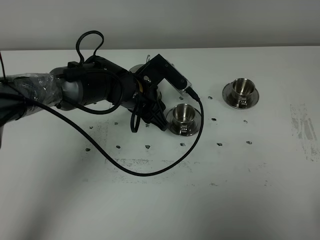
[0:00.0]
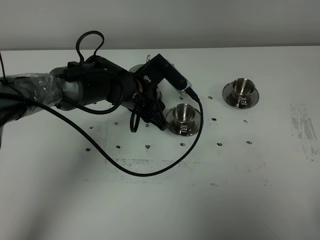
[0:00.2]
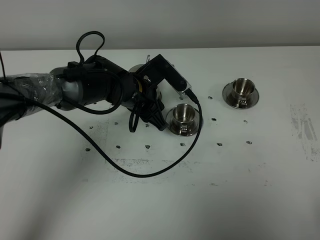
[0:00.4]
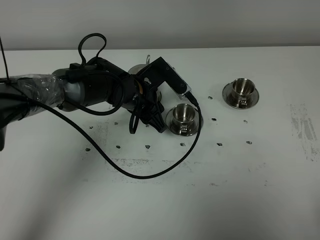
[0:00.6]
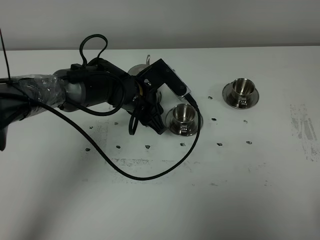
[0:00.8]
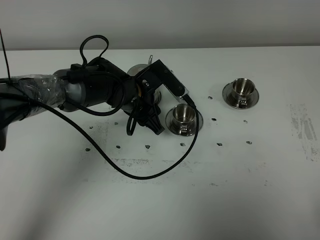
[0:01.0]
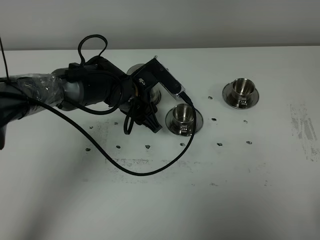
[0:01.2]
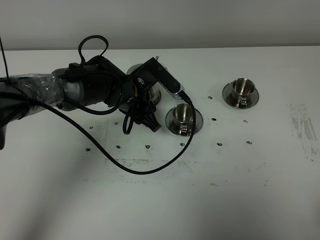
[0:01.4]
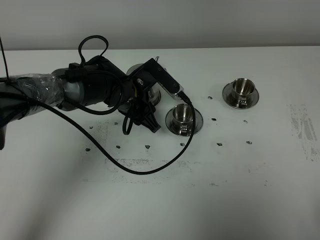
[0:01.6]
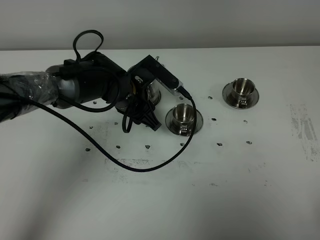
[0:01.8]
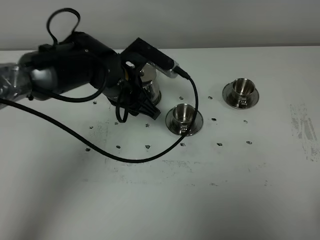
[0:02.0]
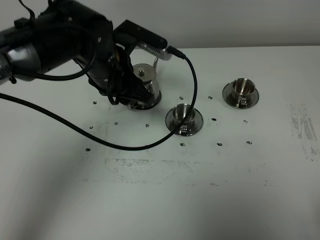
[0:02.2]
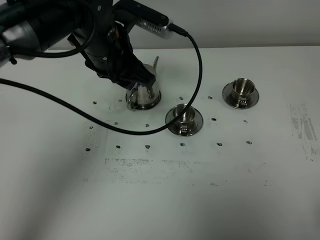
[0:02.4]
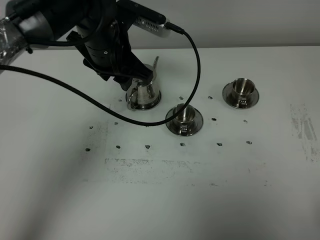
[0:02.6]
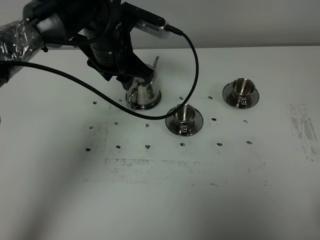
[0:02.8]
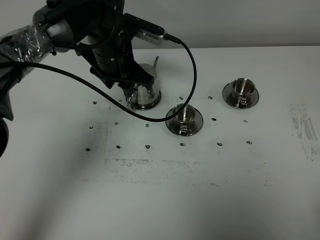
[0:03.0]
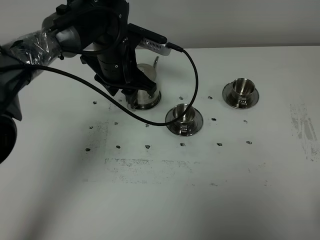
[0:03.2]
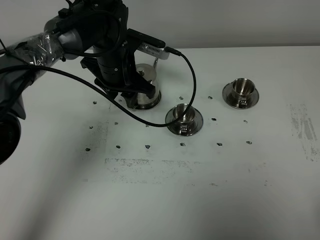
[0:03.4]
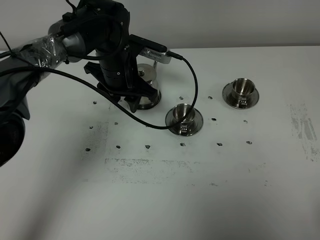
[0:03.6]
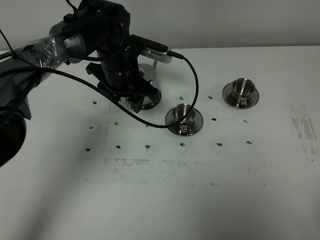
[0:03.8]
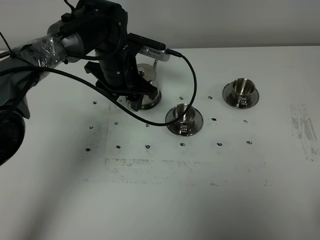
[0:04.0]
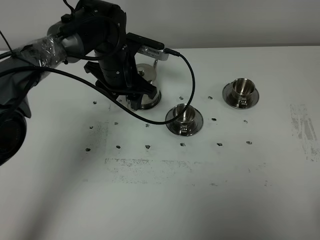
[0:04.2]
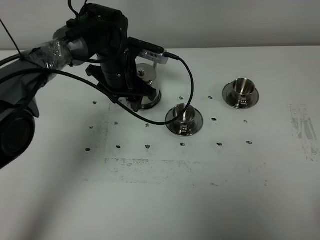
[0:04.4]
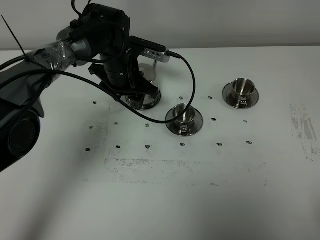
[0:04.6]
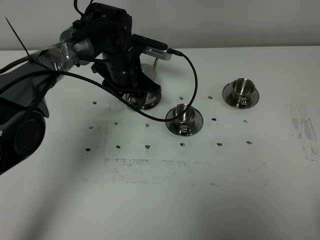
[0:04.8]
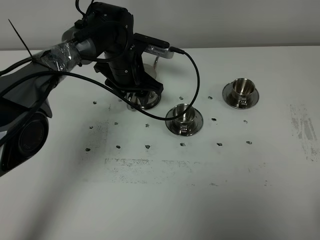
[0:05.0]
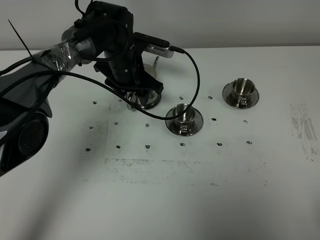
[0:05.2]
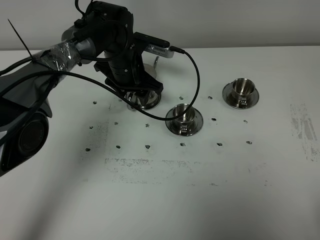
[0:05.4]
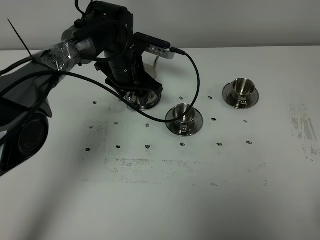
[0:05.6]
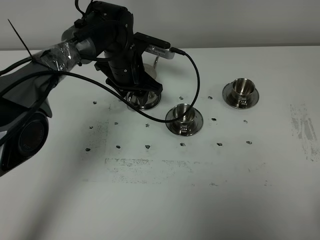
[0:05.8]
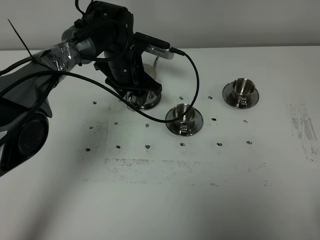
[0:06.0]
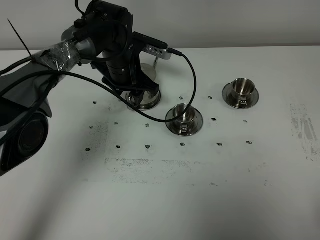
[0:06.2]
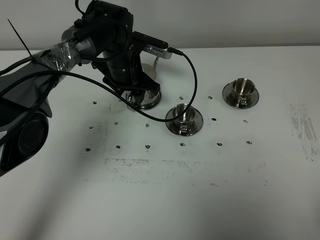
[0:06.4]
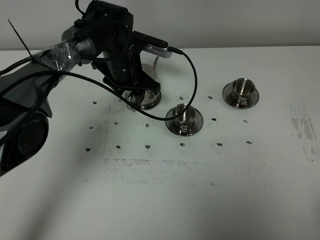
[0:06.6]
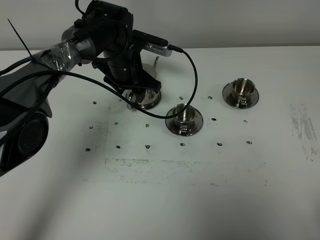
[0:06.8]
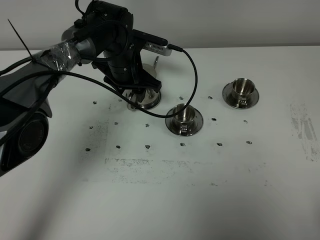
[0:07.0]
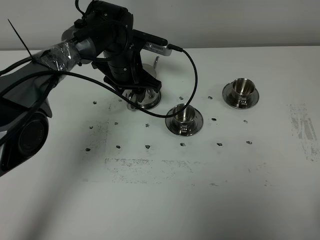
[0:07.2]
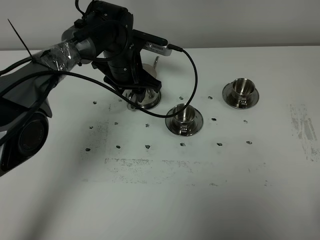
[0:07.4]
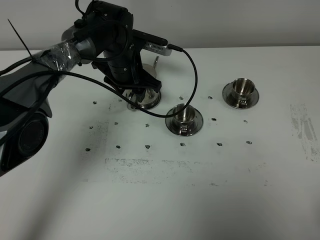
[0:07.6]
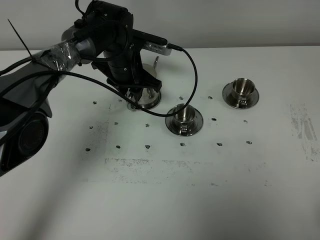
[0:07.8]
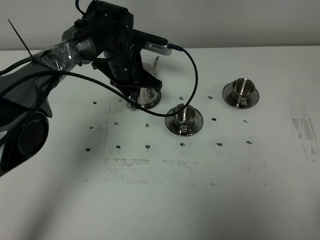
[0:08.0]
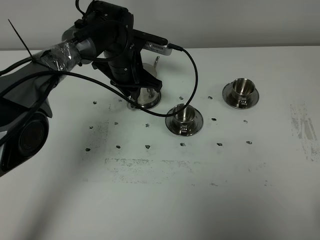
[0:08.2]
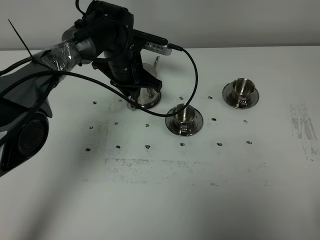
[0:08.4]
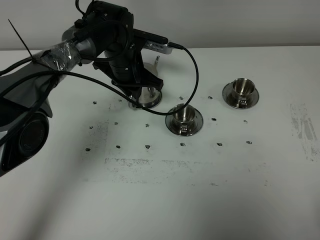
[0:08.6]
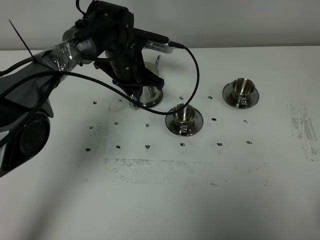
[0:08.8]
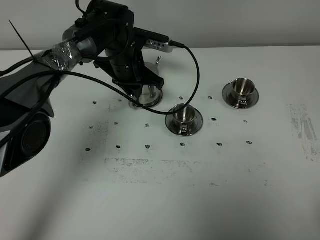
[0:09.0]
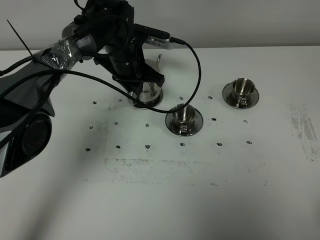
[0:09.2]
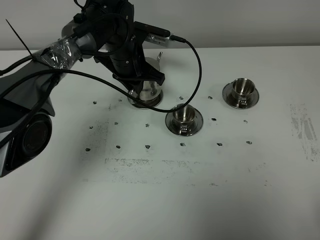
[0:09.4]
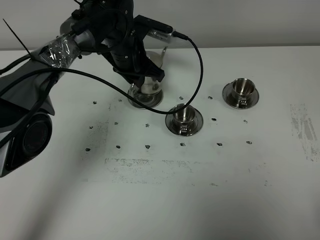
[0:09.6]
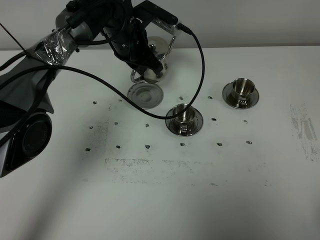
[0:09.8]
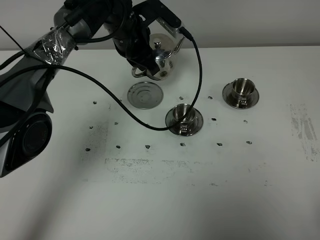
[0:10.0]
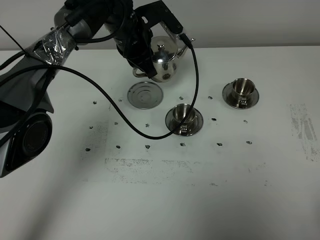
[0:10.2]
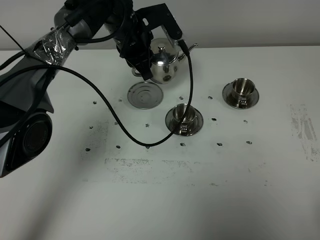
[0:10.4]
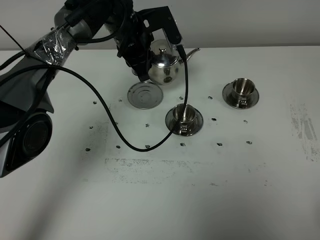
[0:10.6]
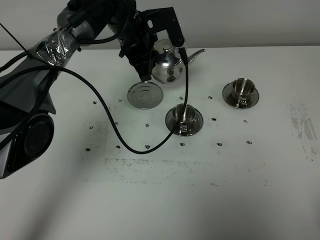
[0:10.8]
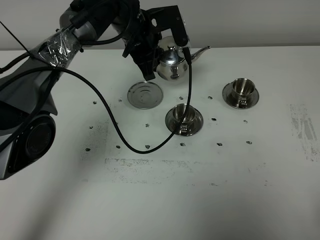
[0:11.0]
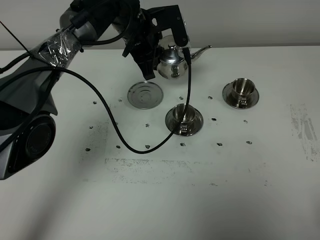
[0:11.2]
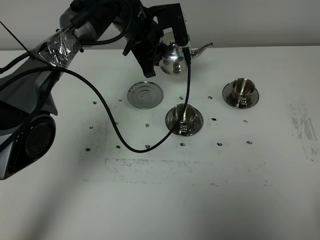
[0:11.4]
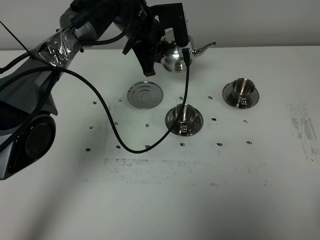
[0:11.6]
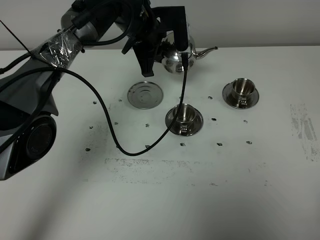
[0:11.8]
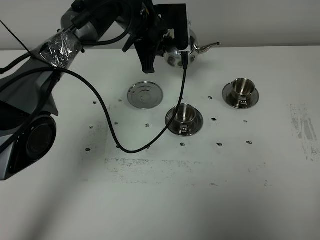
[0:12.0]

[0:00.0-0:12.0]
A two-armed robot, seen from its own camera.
Task of the whole recording: grasp the stainless steel teapot and pour the tea into the two stainless steel teacups one by one, put the stainless steel teapot back in its original place.
Step, 0:00.0 to 0:09.2: Pick up the teapot with the left gripper.
0:00.0 to 0:01.6: The grippers stay close to where they were, moving slightly.
0:01.6 to 0:03.0: The left gripper goes approximately 10 cm upward.
0:03.0 to 0:04.4: The left gripper is displaced downward by some 5 cm.
0:04.4 to 0:06.0: The grippers move only a little.
0:06.0 to 0:07.6: Both grippers stay about where they are.
0:07.6 to 0:09.0: The left gripper closes up.
0:09.0 to 0:10.4: The left gripper heads upward, covering some 5 cm.

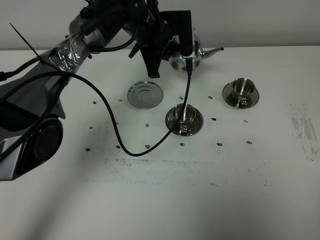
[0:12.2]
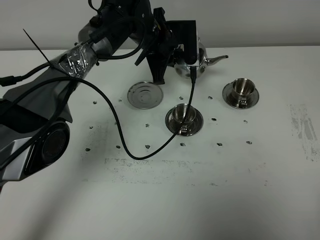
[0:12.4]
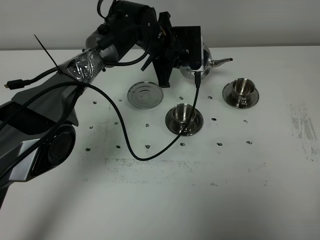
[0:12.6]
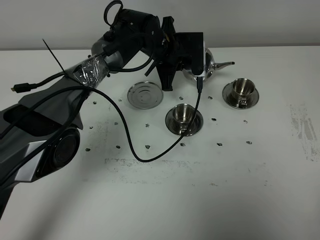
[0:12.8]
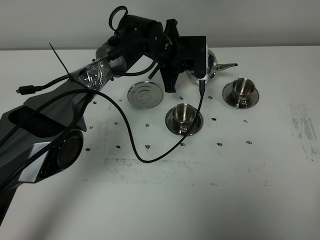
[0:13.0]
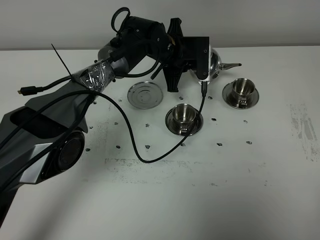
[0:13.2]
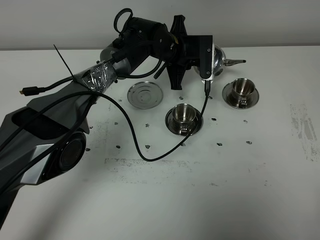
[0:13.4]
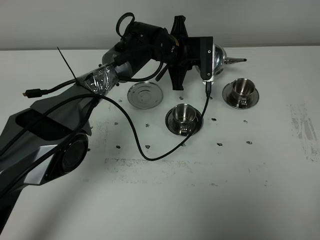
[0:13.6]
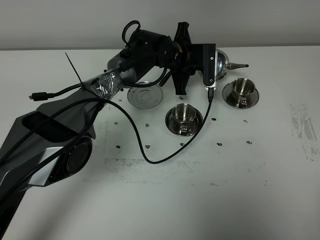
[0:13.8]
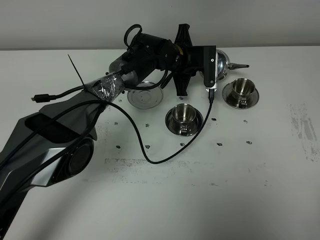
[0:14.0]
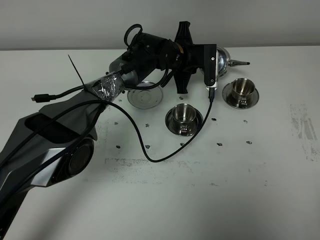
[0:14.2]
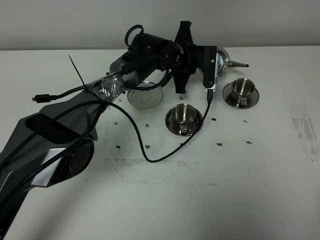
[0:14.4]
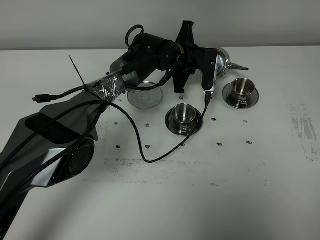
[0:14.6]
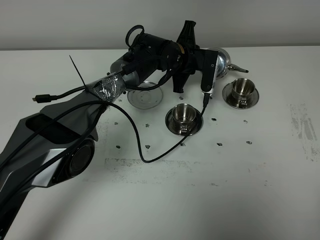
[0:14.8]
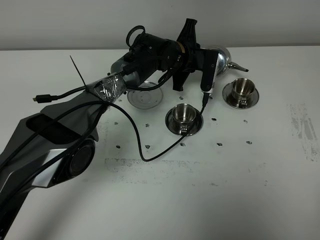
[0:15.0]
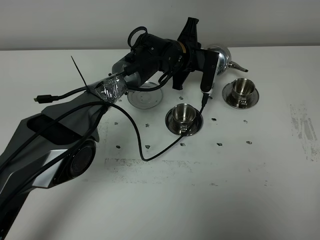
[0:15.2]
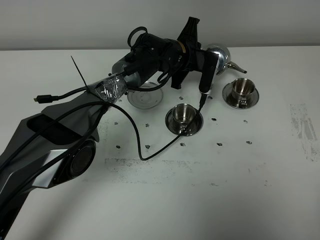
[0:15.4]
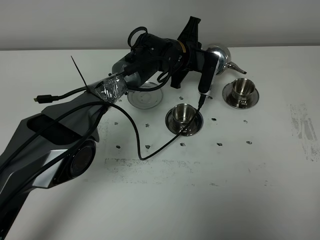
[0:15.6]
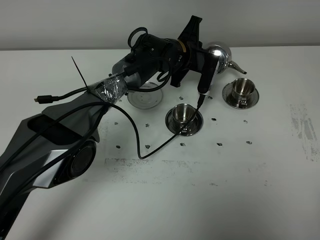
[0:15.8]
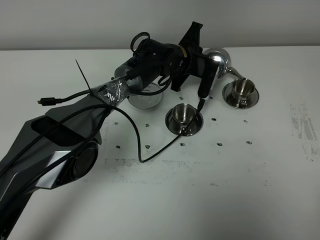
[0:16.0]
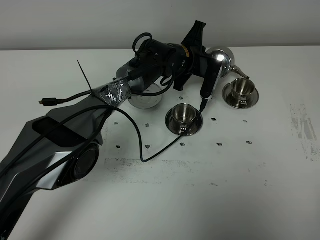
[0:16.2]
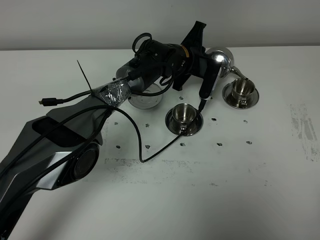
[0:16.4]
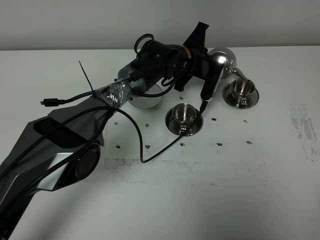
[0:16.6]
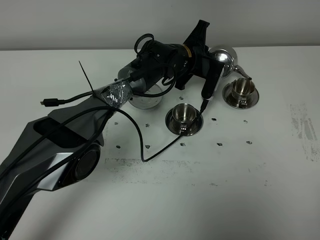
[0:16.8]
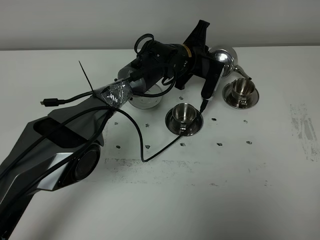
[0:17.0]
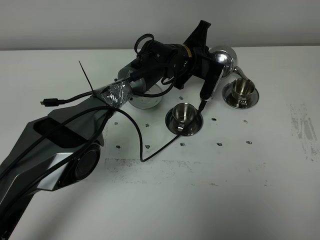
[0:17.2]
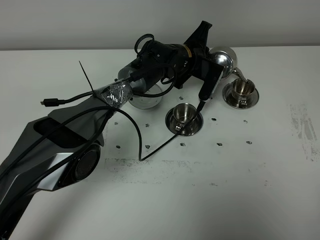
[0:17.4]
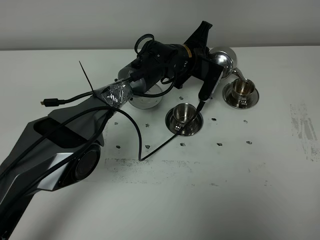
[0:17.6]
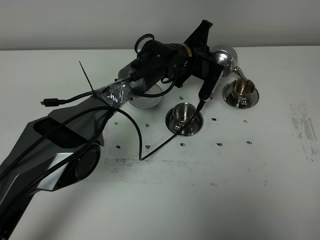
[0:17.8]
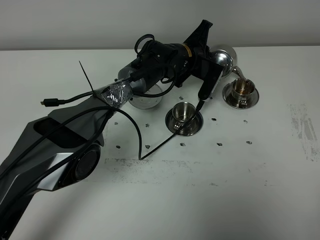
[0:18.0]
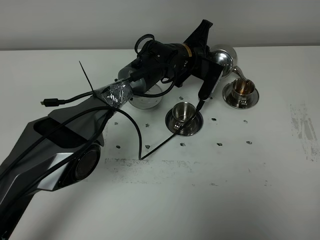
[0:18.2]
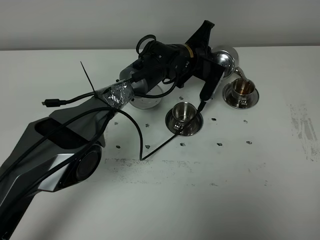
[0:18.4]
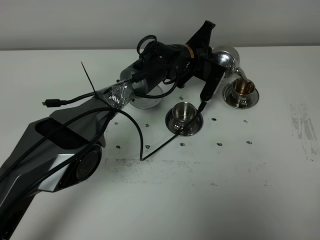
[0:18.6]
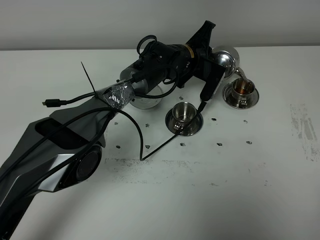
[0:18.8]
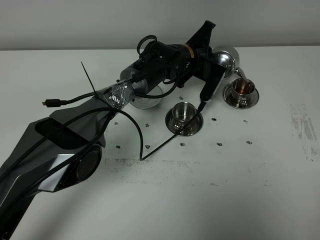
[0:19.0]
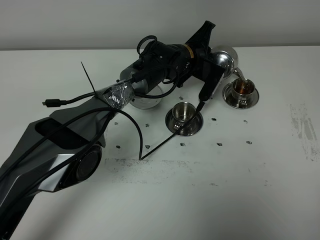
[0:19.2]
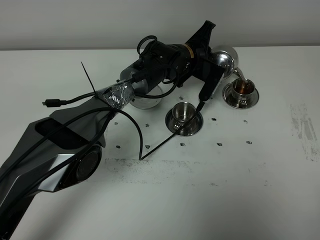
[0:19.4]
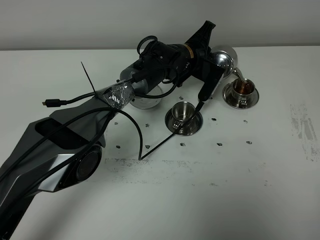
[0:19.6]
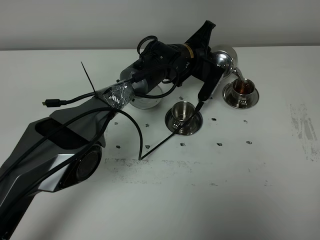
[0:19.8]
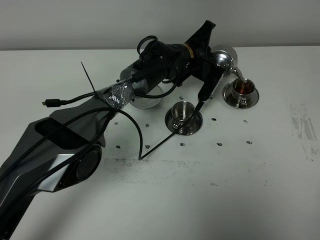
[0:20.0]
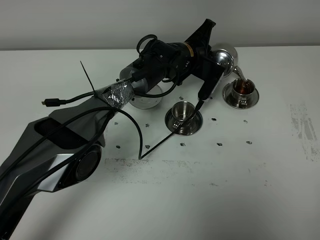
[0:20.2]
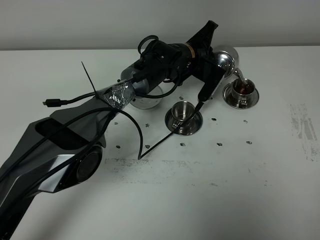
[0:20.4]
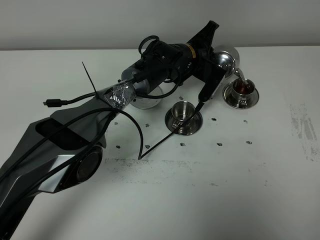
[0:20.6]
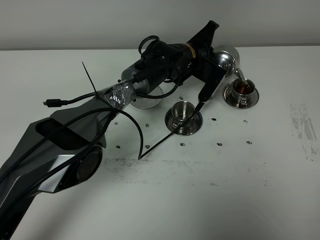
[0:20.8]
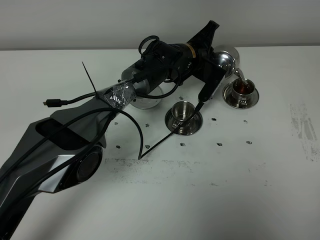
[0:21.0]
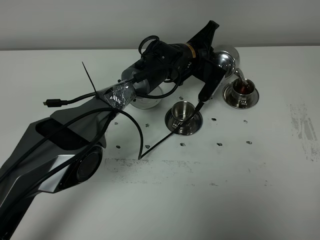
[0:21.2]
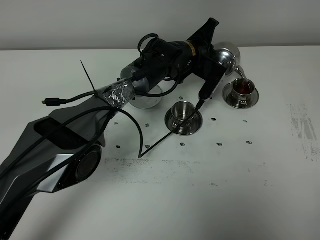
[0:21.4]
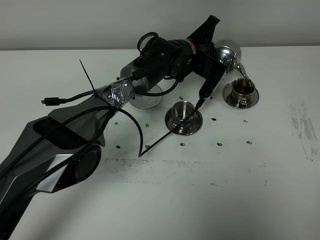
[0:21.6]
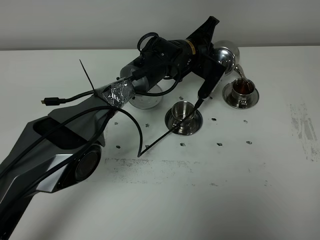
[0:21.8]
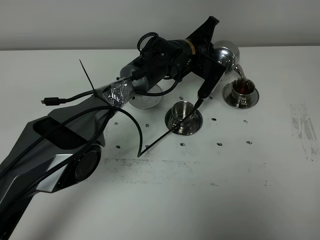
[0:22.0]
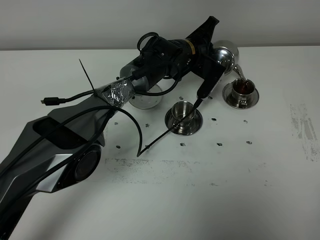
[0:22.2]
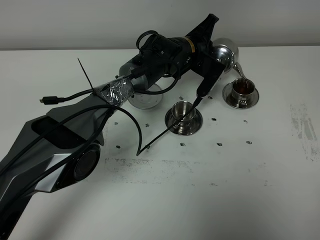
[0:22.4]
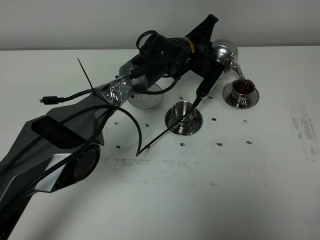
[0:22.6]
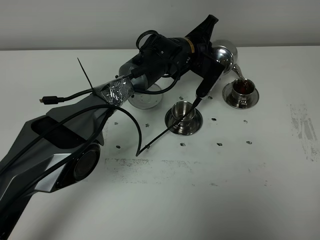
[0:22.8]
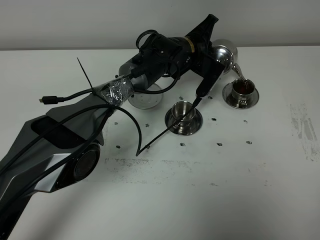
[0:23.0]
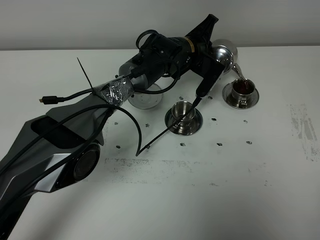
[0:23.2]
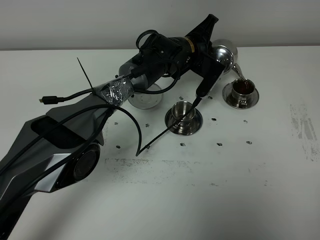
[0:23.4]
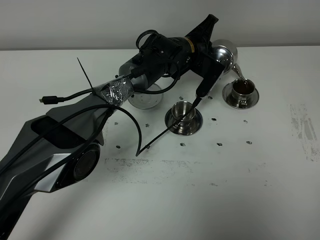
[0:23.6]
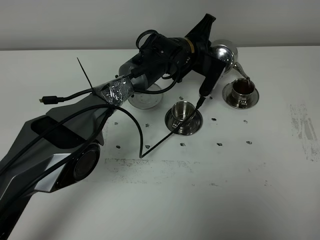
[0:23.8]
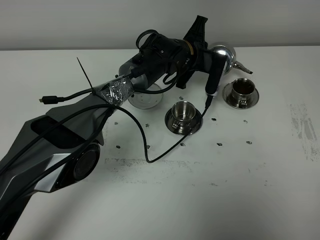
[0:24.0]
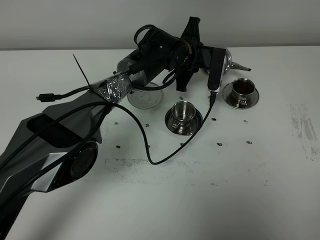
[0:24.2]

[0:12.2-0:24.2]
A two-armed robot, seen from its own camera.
Task of the whole recording: grasp the stainless steel teapot and pour the tea into the two stainless steel teacups one by one, put the stainless steel teapot back in its original place.
0:12.2 to 0:13.8: The left gripper moves downward and to the right, approximately 10 cm.
0:13.8 to 0:15.2: The grippers make only small movements.
0:15.2 to 0:18.2: There are only small adjustments of the grippers.
0:18.2 to 0:19.8: Both grippers stay put.
0:19.8 to 0:21.2: Neither gripper changes place.
0:21.2 to 0:22.6: The two grippers keep their place.
